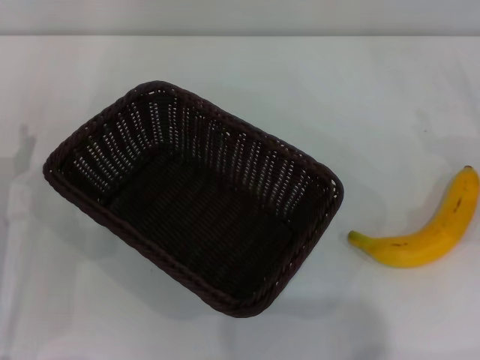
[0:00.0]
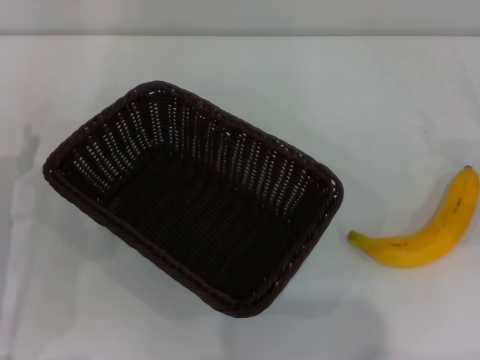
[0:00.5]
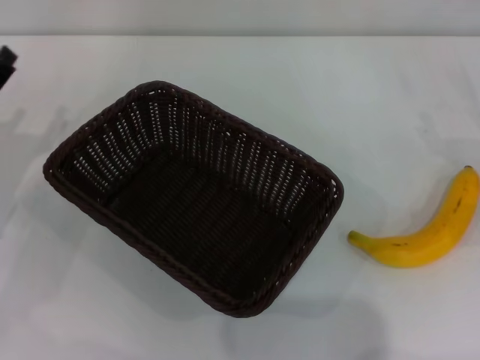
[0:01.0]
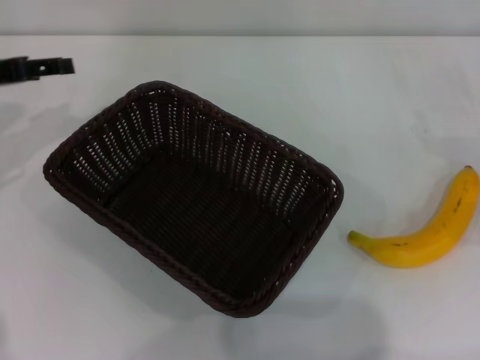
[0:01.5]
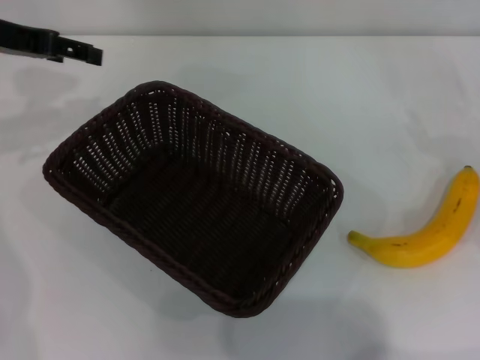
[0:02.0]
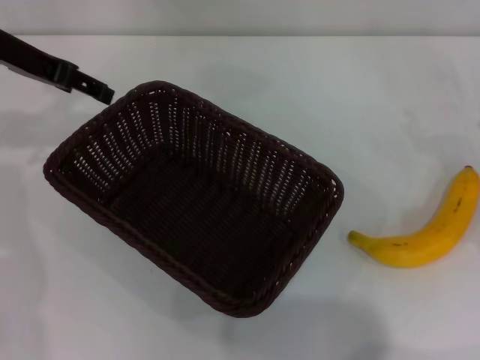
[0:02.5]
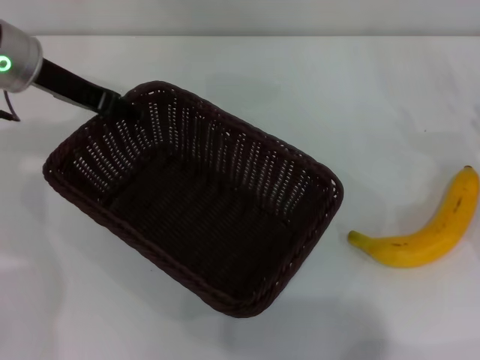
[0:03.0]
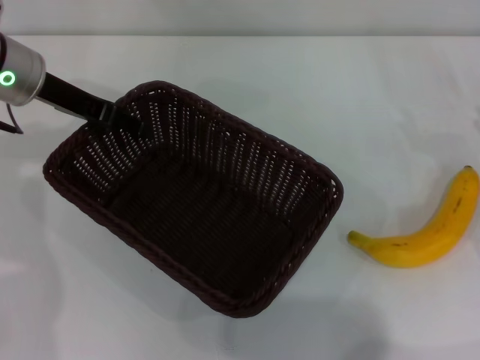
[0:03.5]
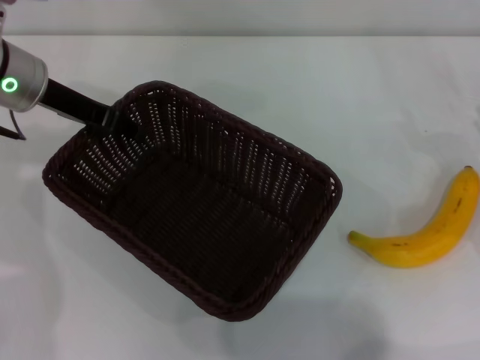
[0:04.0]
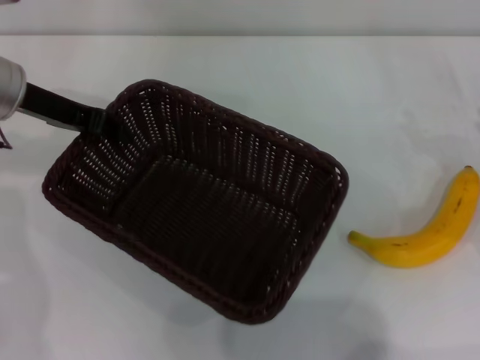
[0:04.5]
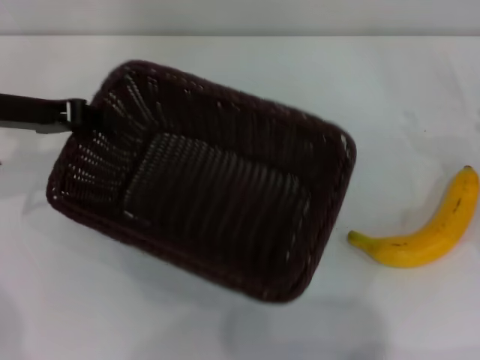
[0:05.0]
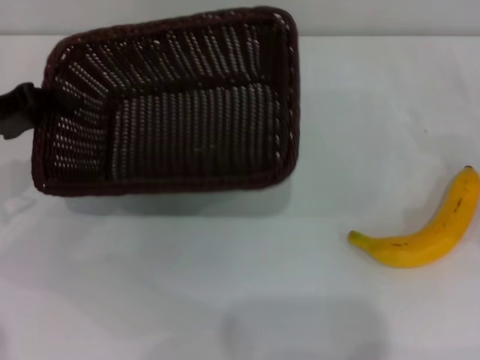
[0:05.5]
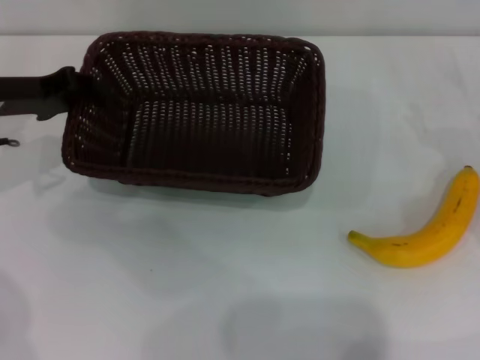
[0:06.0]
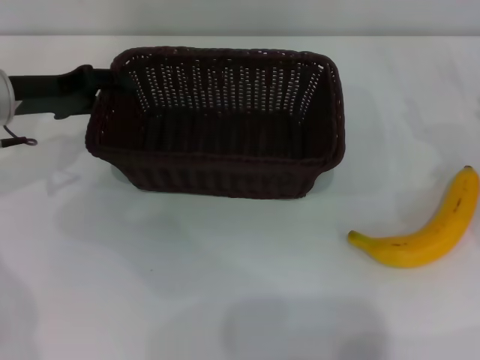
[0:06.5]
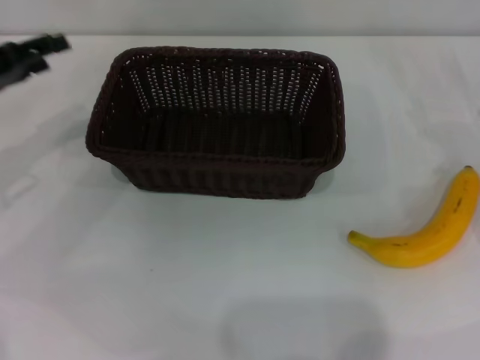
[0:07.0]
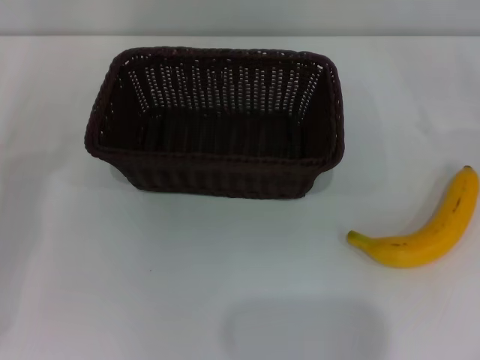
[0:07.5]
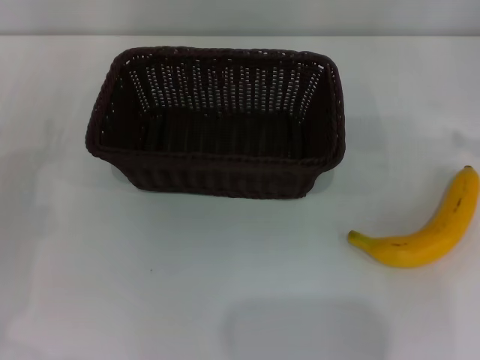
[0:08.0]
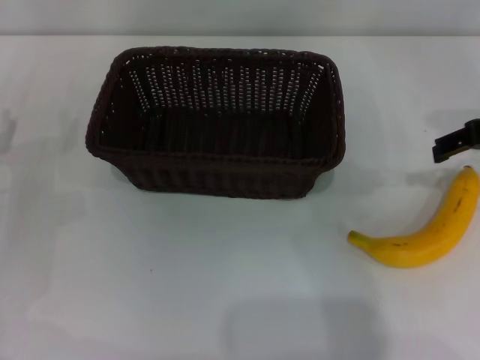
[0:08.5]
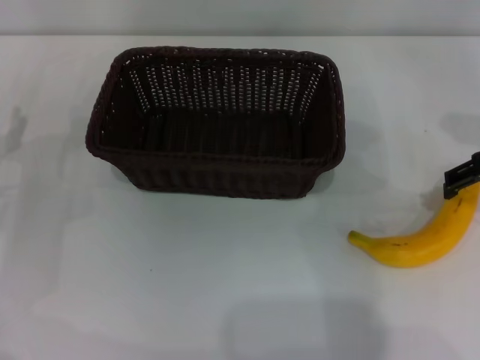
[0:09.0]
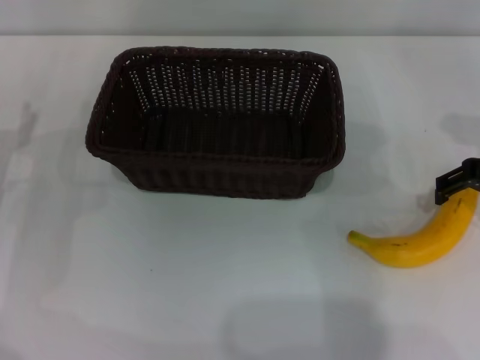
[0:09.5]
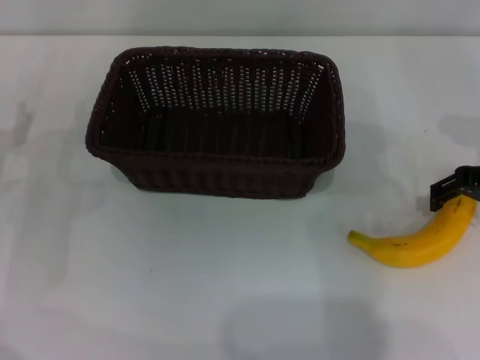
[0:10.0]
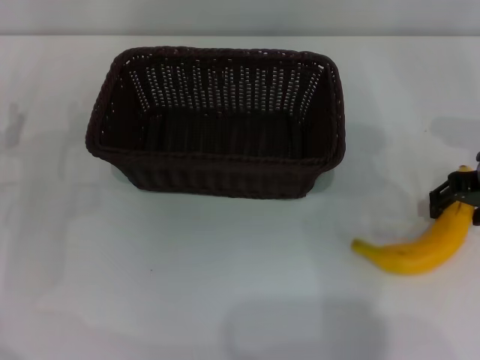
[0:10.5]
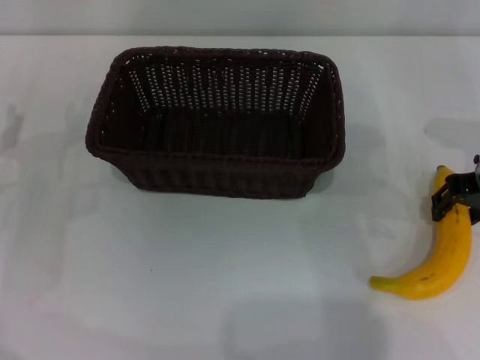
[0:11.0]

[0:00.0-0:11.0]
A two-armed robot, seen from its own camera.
Step, 0:00.0 to 0:04.5: Pick up the dark basket with the left gripper.
Step, 0:05.0 to 0:06.5: Place the dark basket in the center of view with the left gripper.
0:00.0 to 0:02.0: The left gripper travels upward and forward by approximately 25 cm.
0:02.0 to 0:03.5: The left gripper is displaced to the right by about 5 cm.
0:03.5 to 0:05.5: The left gripper heads to the left and backward, covering approximately 10 cm, and closes.
0:05.5 to 0:07.5: The right gripper moves to the right and upward, roughly 10 cm, while the left gripper shifts roughly 10 cm backward and downward, and opens its fingers.
0:07.5 to 0:09.0: The right gripper travels to the left and upward by about 20 cm.
0:09.0 to 0:11.0: The right gripper closes up.

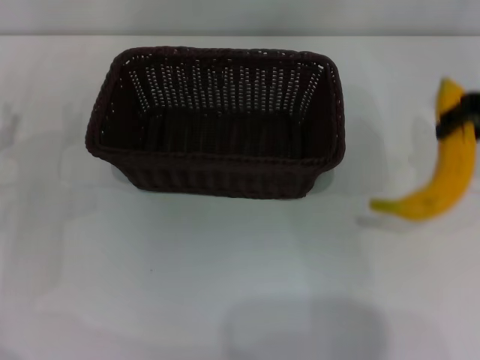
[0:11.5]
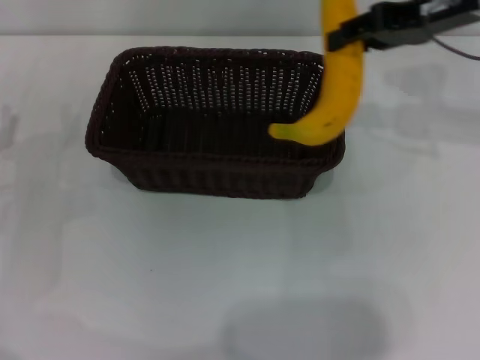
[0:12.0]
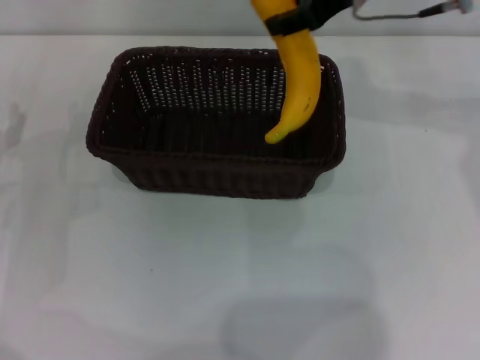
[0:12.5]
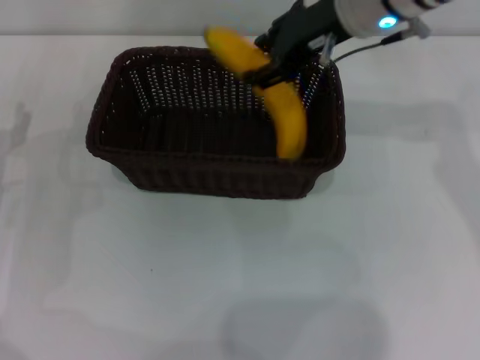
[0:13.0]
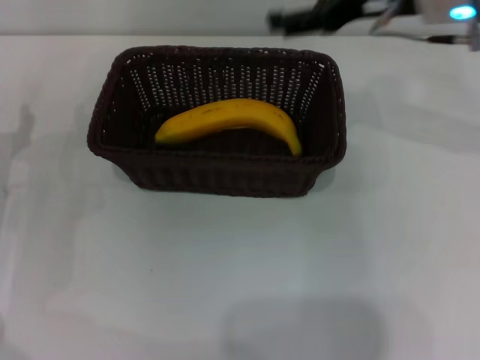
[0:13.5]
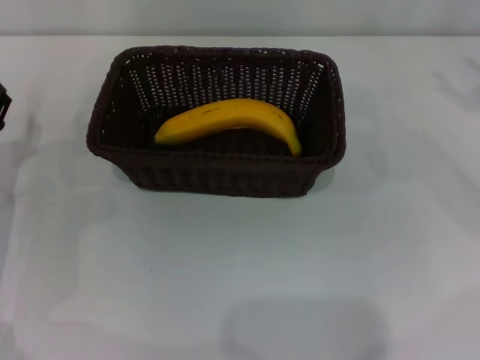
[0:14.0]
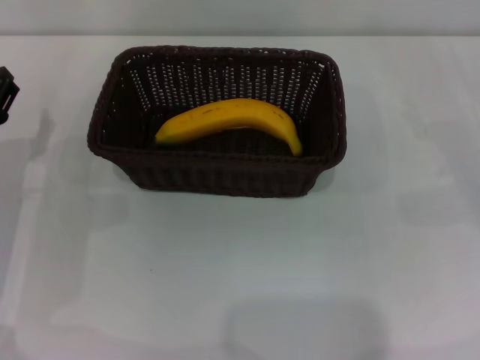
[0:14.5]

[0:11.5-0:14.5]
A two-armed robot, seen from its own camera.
Step, 0:11.5 to 0:13.0: Place the banana into the dark basket with the right gripper.
0:11.5 to 0:13.0: The right gripper shifts about 15 cm to the left and forward.
0:13.0 to 0:14.5: The right gripper is displaced to the right, downward and backward by roughly 35 cm, and opens its fingers.
